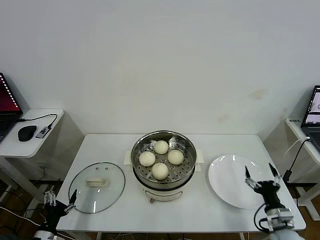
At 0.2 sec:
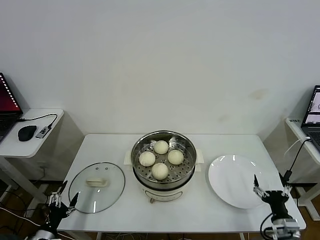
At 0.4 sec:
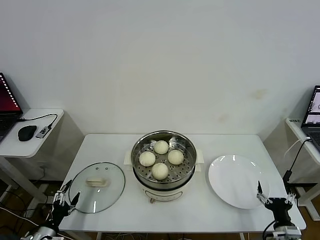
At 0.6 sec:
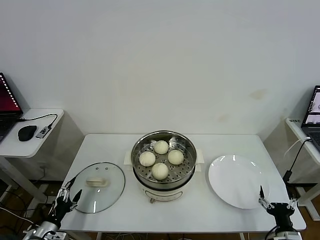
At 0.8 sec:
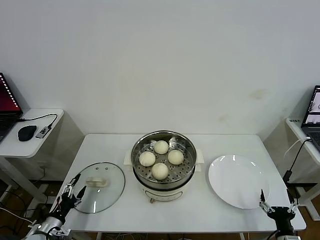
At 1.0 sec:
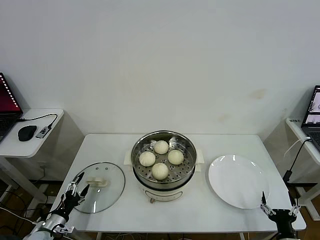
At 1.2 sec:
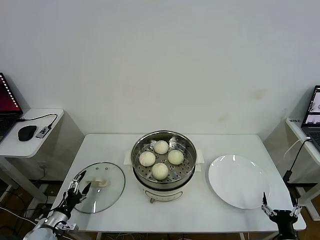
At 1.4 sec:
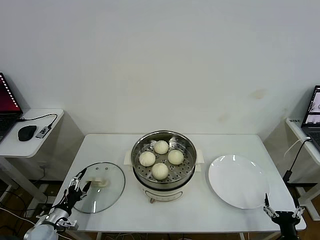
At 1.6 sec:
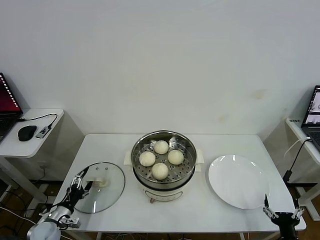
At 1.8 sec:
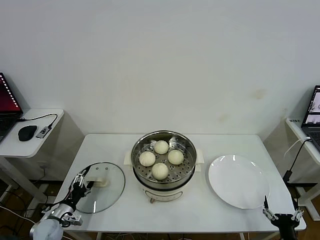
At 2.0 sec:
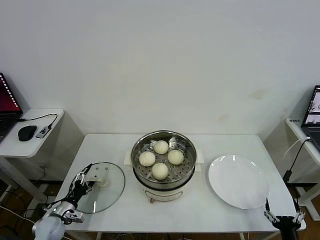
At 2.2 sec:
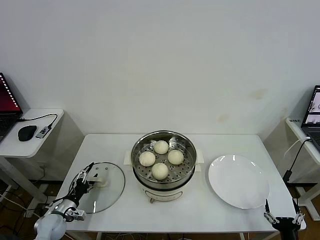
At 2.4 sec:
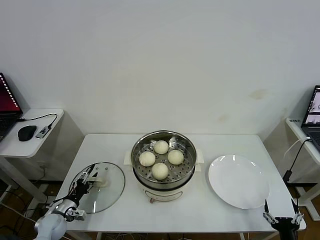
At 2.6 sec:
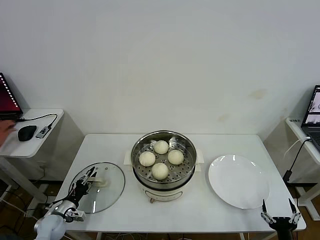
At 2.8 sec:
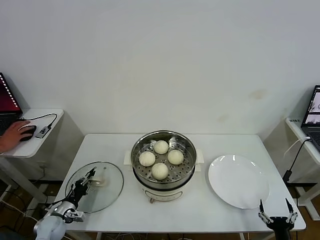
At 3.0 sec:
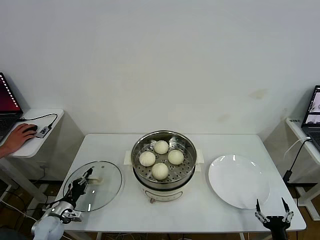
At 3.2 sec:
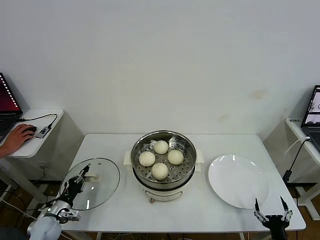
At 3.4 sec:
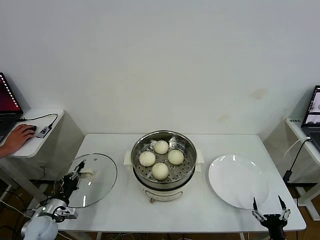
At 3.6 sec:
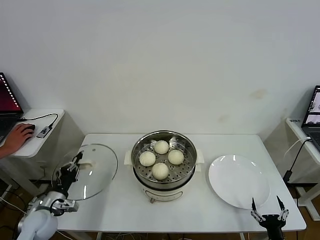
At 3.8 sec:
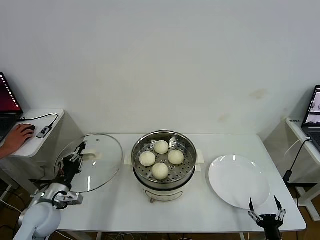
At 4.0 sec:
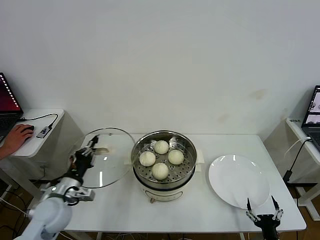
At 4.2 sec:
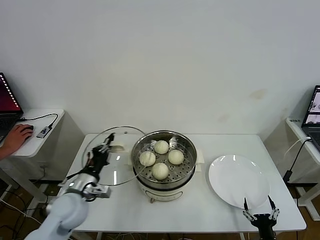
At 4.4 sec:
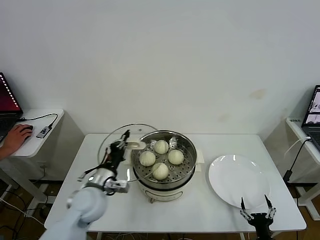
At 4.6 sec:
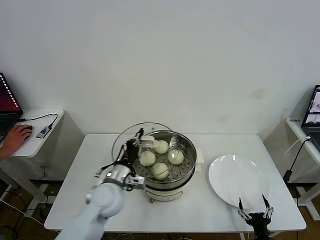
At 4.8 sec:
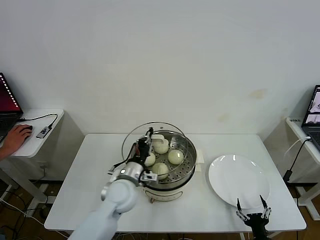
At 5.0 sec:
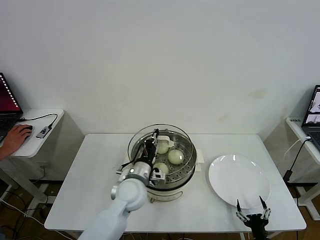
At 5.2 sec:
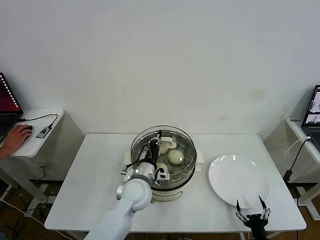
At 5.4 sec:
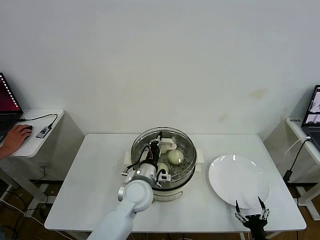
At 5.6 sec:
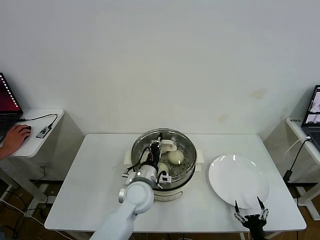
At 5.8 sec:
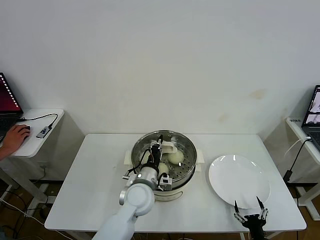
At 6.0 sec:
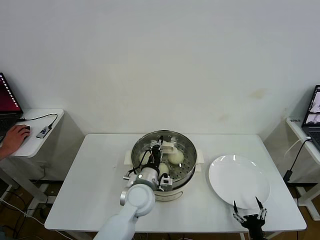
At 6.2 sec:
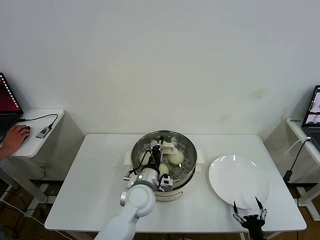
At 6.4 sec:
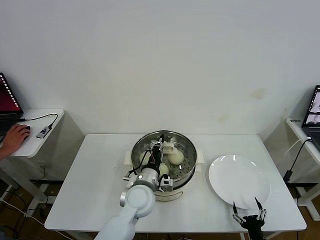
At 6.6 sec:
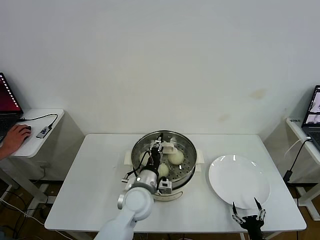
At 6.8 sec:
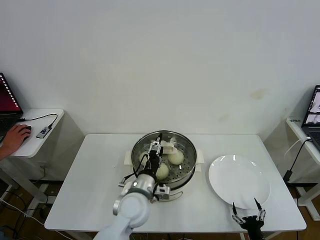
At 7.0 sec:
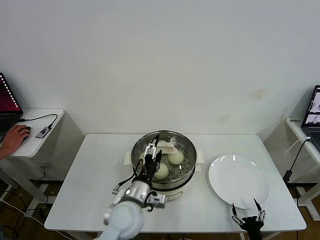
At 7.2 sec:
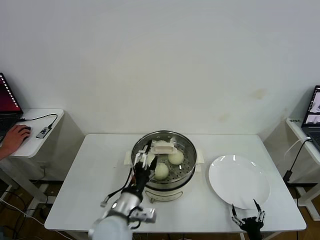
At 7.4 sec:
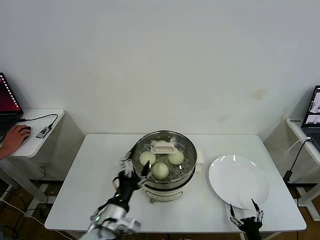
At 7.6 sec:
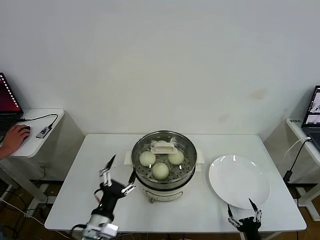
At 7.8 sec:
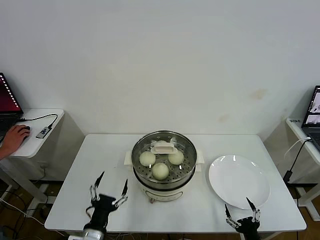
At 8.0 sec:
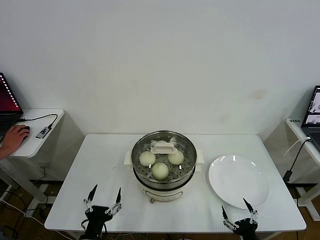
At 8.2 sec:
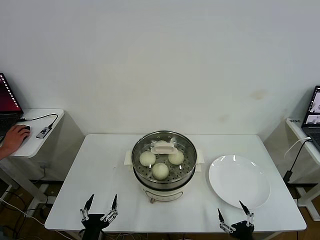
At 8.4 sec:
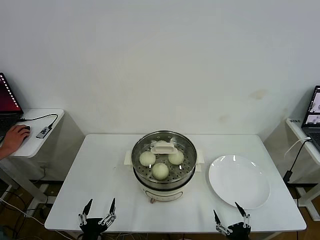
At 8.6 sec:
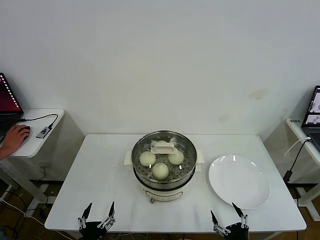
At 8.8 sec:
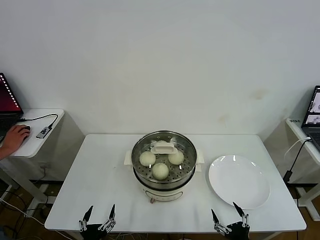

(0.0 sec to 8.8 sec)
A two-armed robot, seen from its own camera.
Task of the whole recording: take steamed baozi put them in steamer then cover it.
Step, 0.0 sec - 3.0 sec: Grasp the pot lid with left gripper.
Step, 3.2 sec - 7.0 sec: Place the pot lid on the steamer with left gripper.
0.0 sec - 1.4 sec: The left gripper moves forward, about 10 cm; the right gripper moves backward, roughly 10 cm.
1.4 sec - 3.0 sec: The left gripper closes up.
3.0 sec - 4.4 sec: The left gripper is displaced upward and to the right by roughly 30 cm.
4.4 sec - 5.8 sec: The left gripper goes some 15 cm to the right.
5.8 sec - 7.4 sec: The left gripper moves backward and to the left, approximately 15 cm, and opens up.
7.4 sec - 8.8 sec: The right gripper is displaced upward by approximately 10 cm; the left gripper travels downward, backward and to the left by approximately 20 cm.
